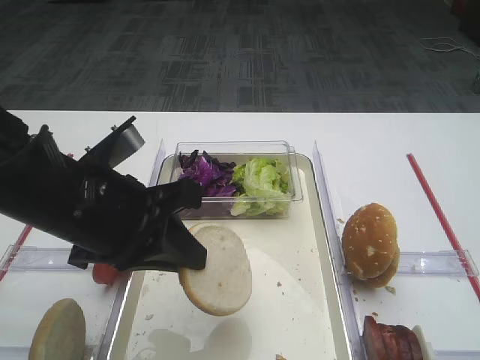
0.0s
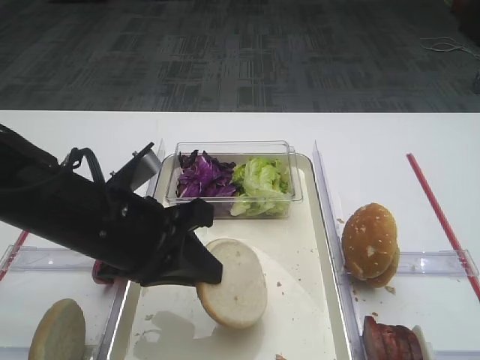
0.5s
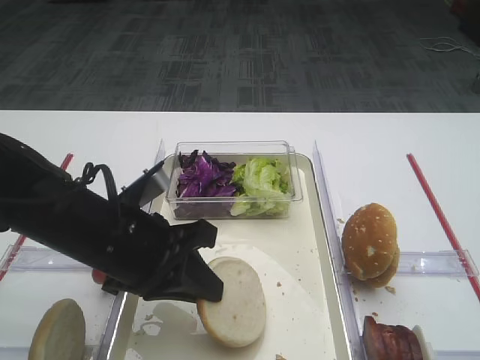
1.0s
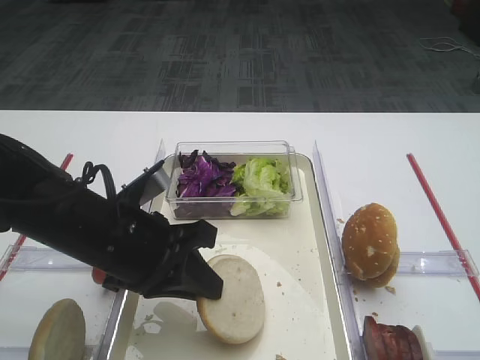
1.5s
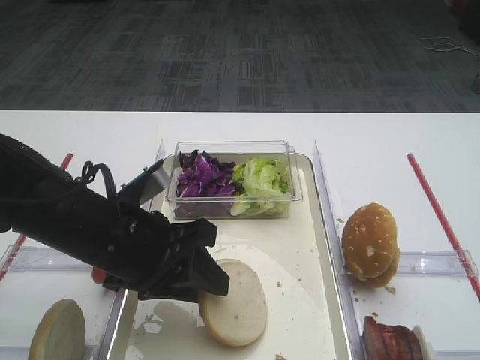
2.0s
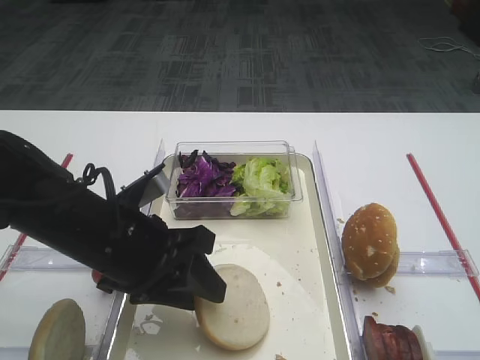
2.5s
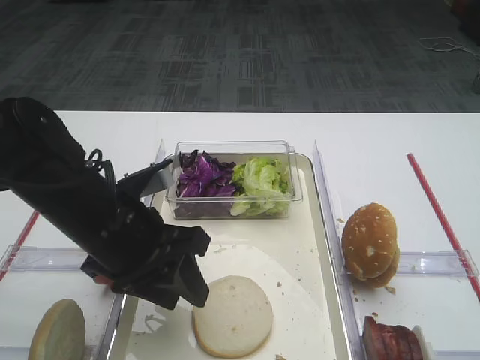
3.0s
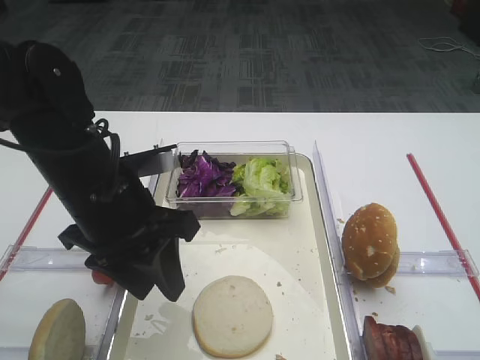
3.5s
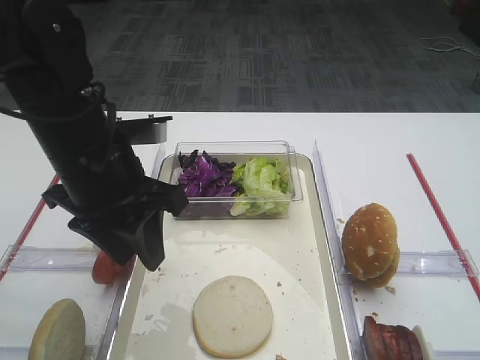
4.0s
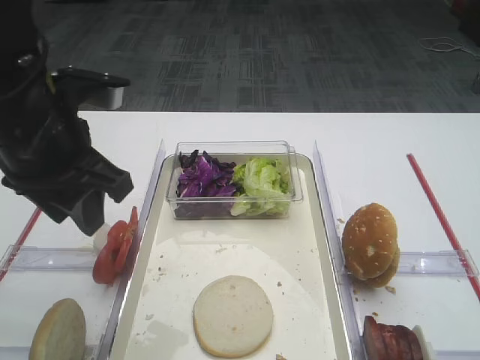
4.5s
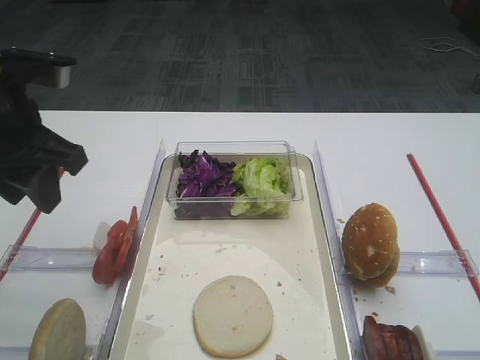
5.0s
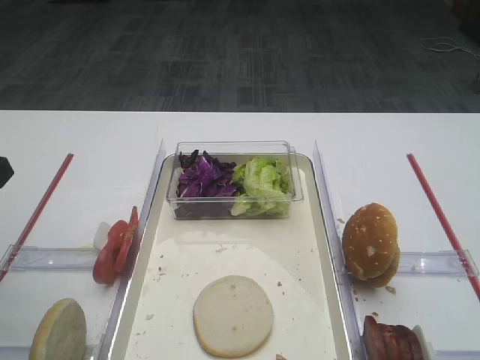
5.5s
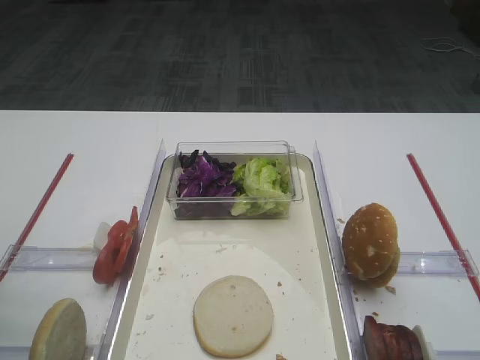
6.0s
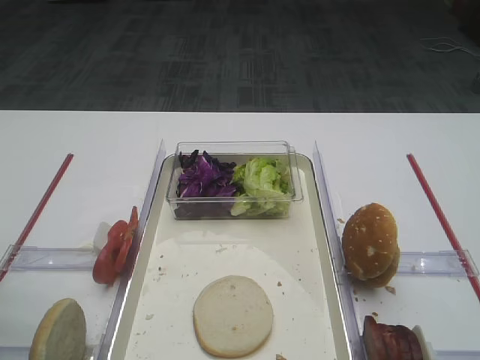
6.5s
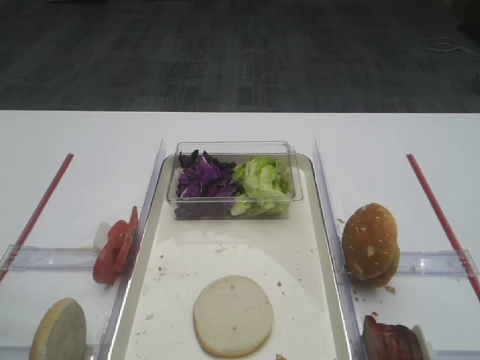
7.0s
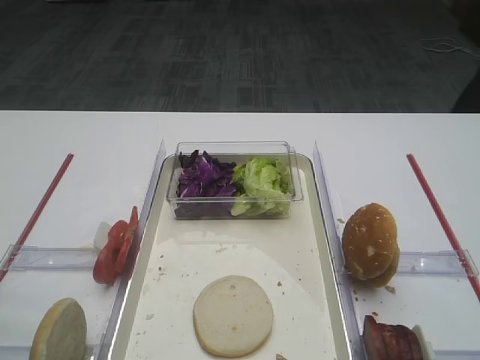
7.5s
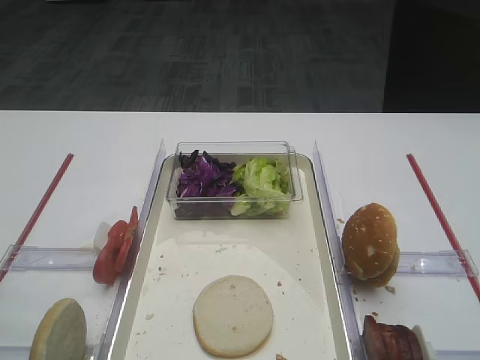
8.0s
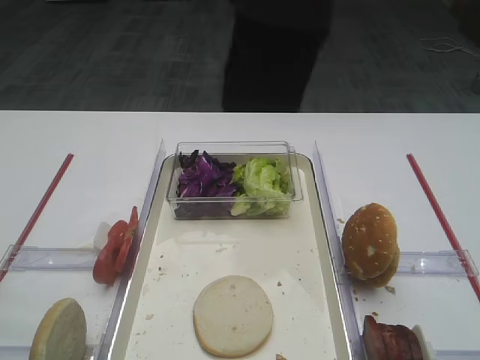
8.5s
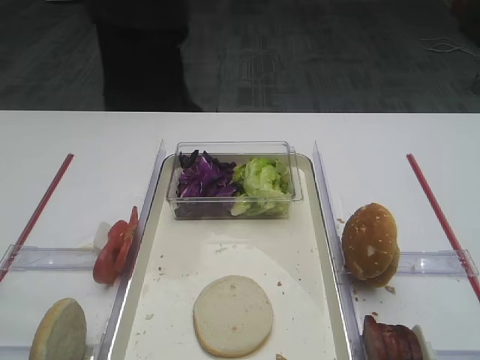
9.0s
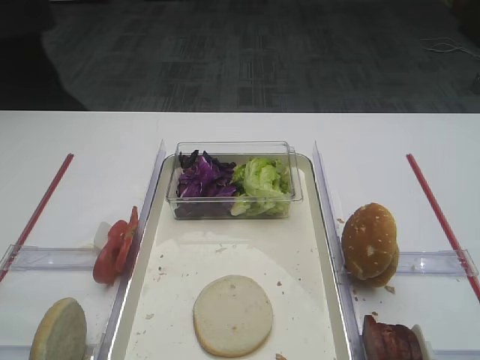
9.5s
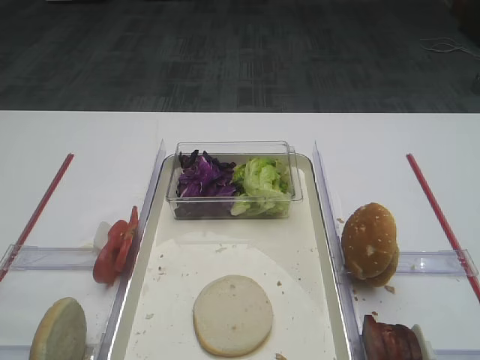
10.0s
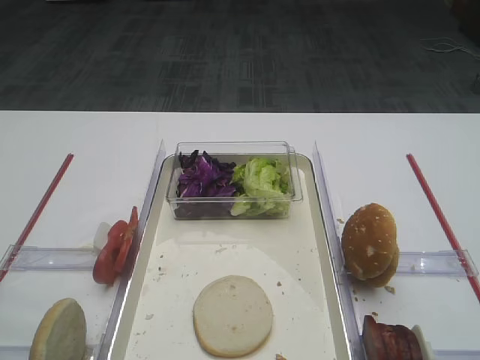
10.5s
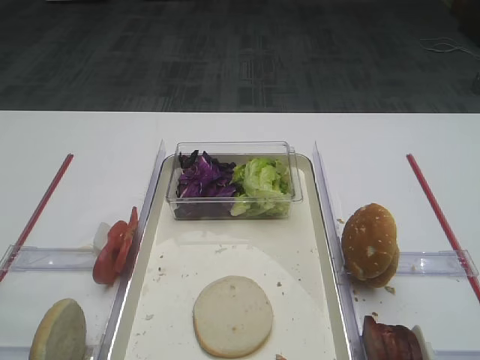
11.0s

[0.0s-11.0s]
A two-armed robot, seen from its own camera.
Step, 0.0s to 4.0s: Place the bread slice on the tray with the left gripper.
0.0s to 2.0s: The left gripper moves downward, roughly 5 cm.
3.5s to 5.5s: The left gripper is displaced to the left and upward by some 15 cm.
7.5s to 9.0s: The left gripper heads backward, covering about 10 cm.
9.0s to 11.0s: Both grippers stay put.
